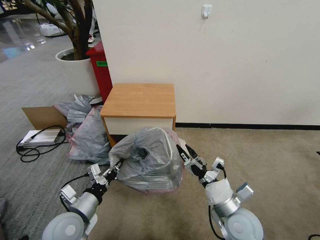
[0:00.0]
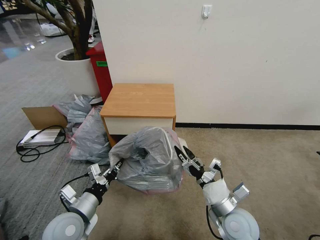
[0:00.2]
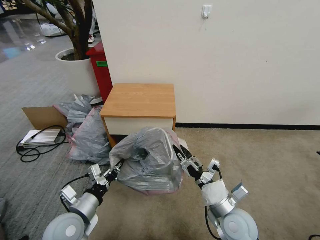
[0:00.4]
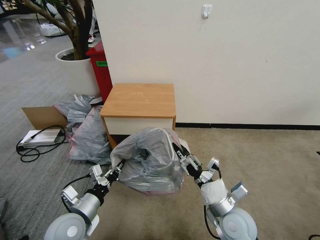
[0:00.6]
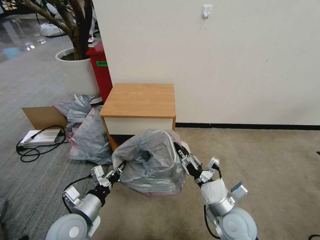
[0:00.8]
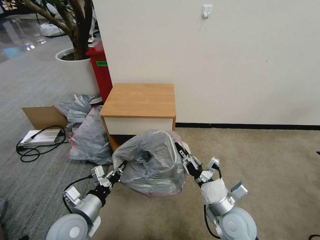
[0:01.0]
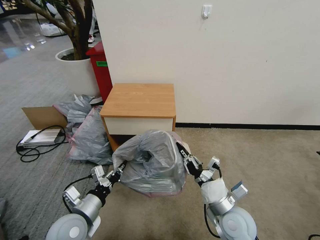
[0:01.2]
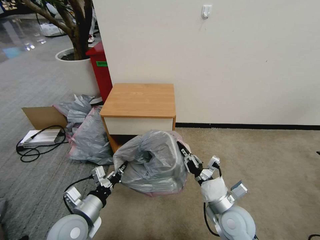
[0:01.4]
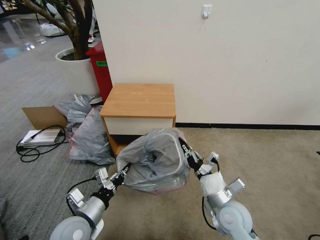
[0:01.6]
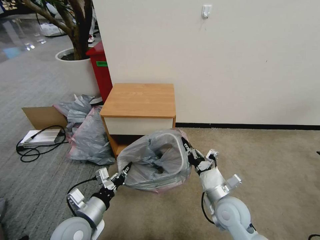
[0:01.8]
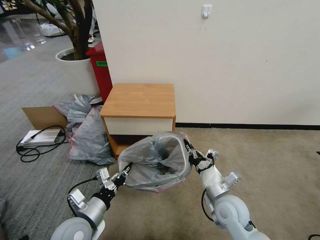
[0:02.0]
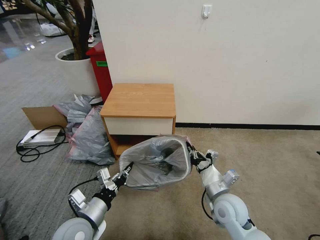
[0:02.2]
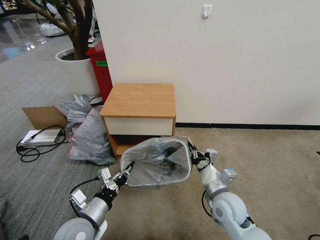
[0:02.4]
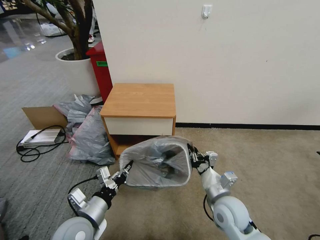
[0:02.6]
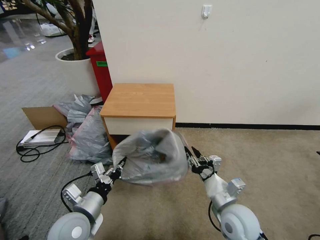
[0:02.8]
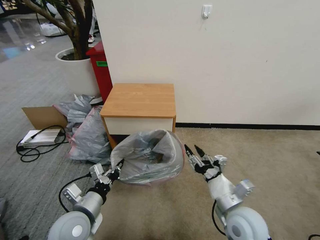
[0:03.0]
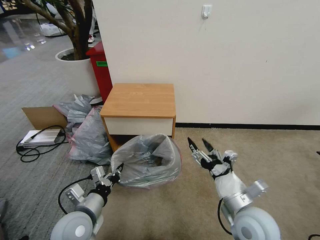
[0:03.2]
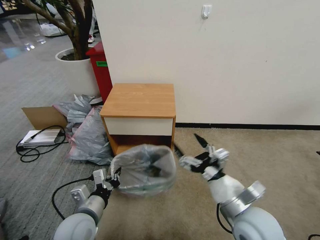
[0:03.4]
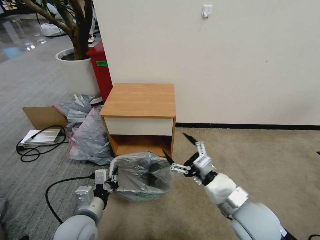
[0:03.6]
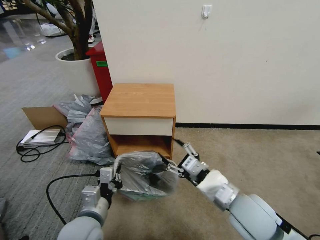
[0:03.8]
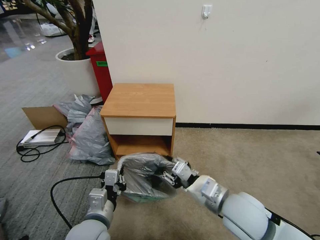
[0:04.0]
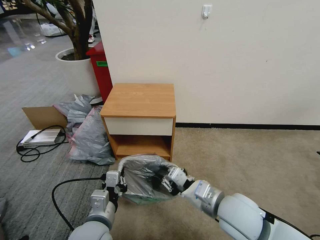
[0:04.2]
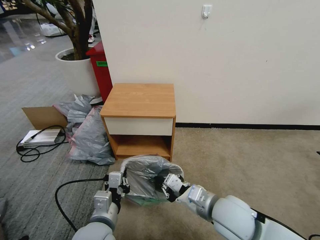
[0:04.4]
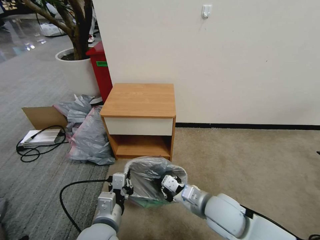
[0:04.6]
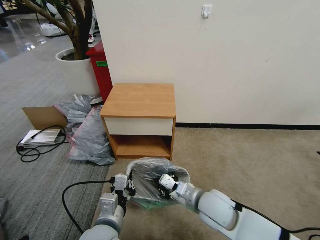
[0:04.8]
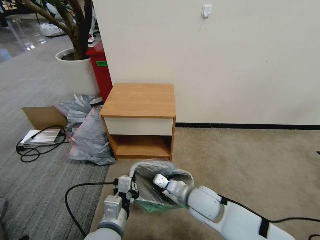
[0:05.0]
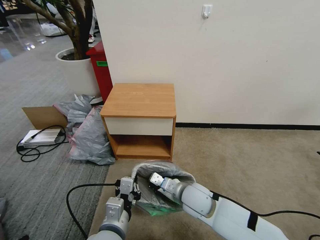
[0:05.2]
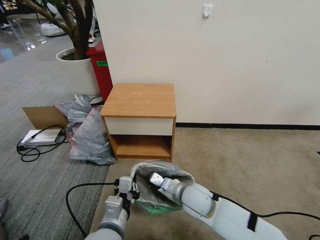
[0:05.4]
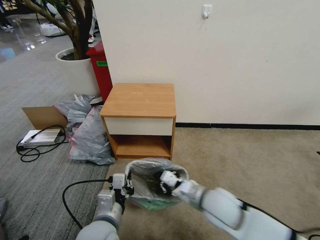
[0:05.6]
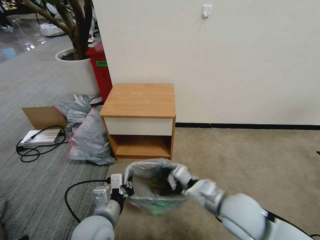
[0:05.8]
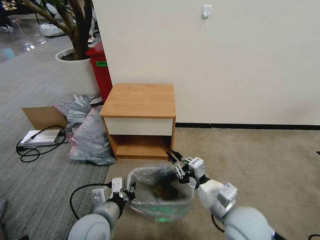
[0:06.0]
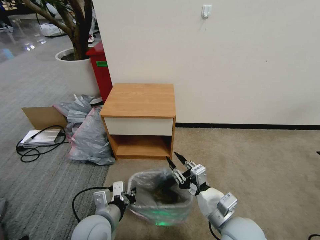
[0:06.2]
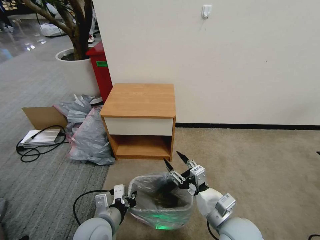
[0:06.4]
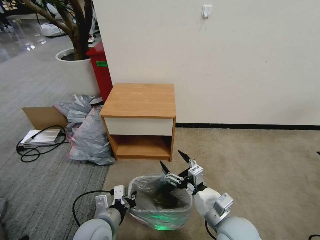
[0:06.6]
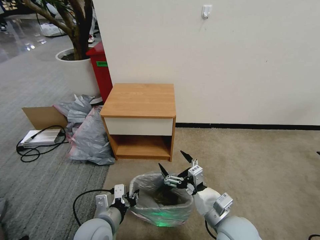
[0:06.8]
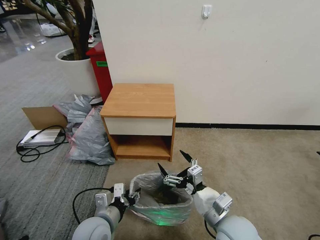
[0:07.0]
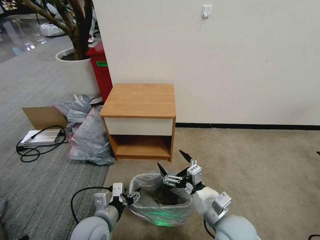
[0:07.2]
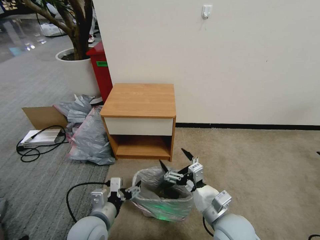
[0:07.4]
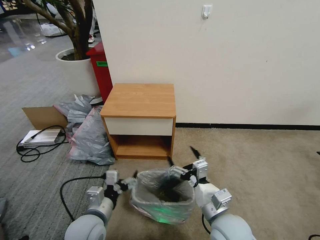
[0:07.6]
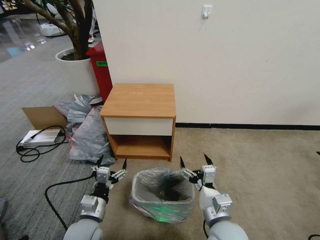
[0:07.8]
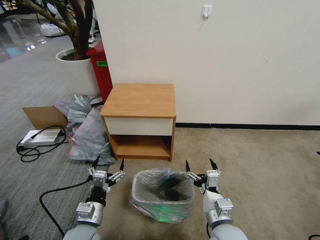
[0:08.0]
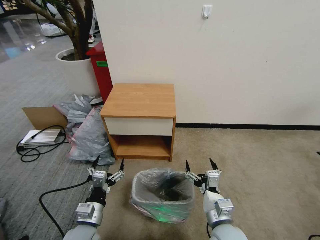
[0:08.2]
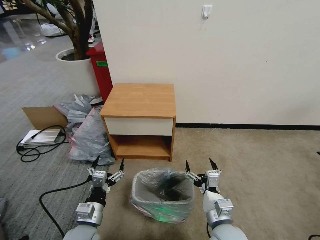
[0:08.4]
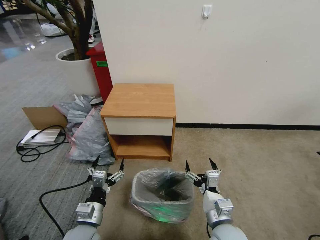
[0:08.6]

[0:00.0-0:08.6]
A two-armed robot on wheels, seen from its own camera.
Task of the whole recording: Pick up the garbage bag from the table and place it over the trash can.
0.0 to 1.4 s: The right gripper closes up.
1.4 to 2.8 s: The right gripper opens its fingers.
2.8 to 4.4 s: The right gripper heads upward, covering about 5 cm, and closes, while the left gripper goes approximately 5 cm to the right.
4.4 to 5.8 s: The right gripper moves about 10 cm downward and comes back.
5.8 to 7.2 s: The right gripper changes place by about 5 cm, and opens its fingers; the left gripper travels downward by some 5 cm, and opens its fingers.
7.2 to 8.6 s: The right gripper travels downward by about 5 cm. Meanwhile the left gripper moves about 5 cm.

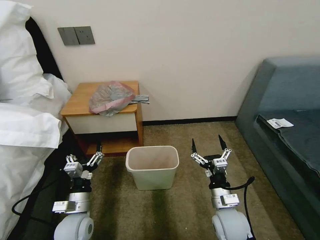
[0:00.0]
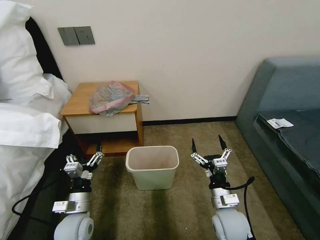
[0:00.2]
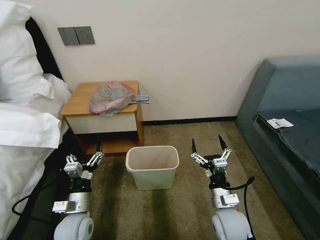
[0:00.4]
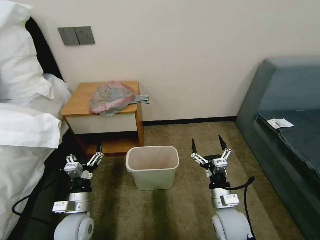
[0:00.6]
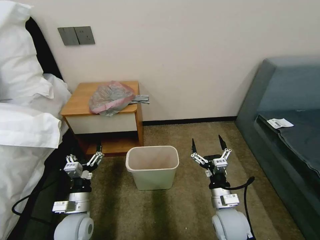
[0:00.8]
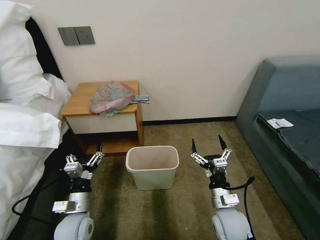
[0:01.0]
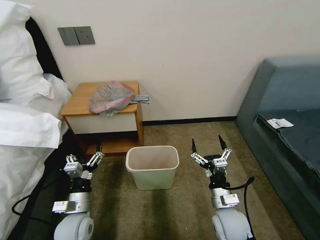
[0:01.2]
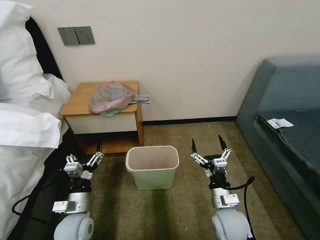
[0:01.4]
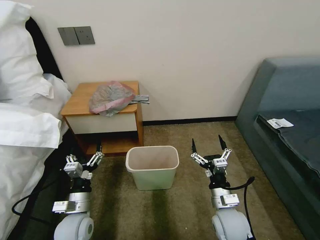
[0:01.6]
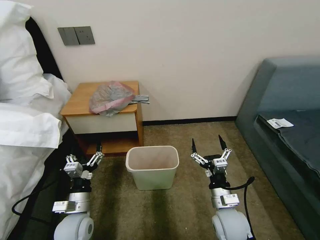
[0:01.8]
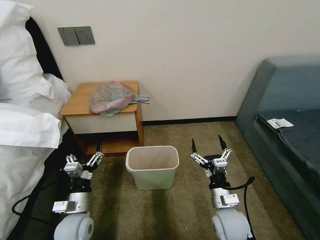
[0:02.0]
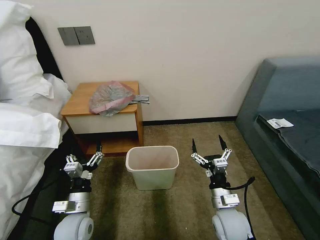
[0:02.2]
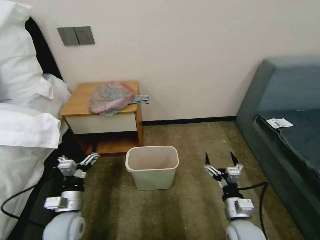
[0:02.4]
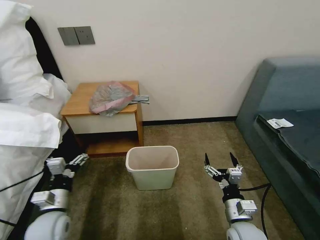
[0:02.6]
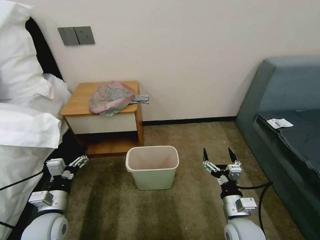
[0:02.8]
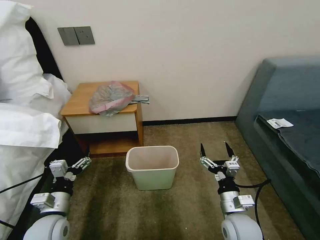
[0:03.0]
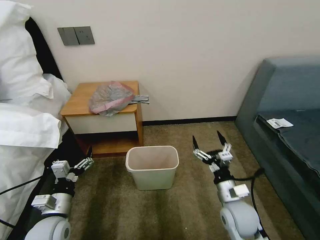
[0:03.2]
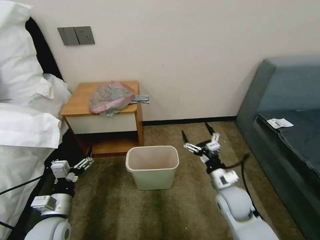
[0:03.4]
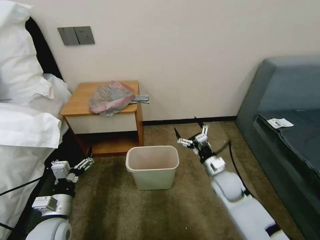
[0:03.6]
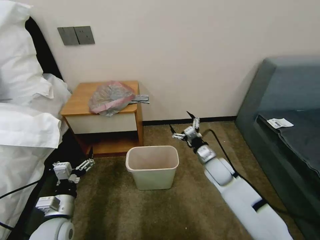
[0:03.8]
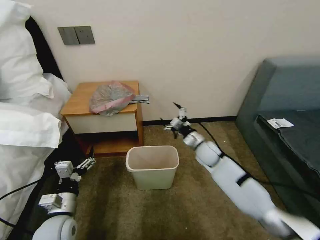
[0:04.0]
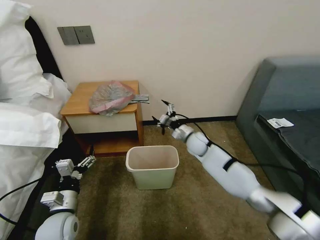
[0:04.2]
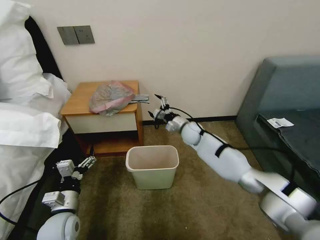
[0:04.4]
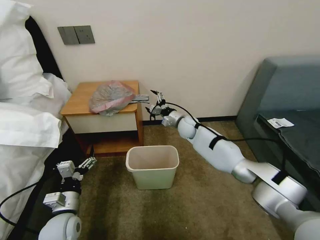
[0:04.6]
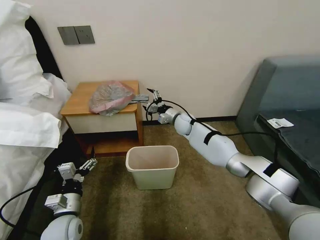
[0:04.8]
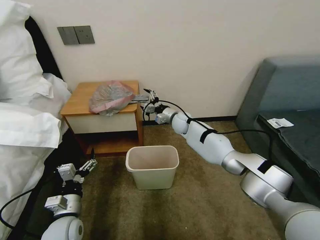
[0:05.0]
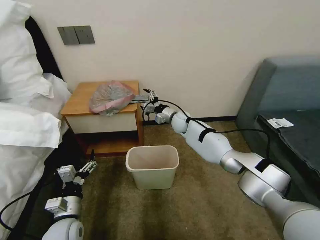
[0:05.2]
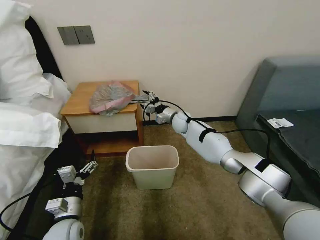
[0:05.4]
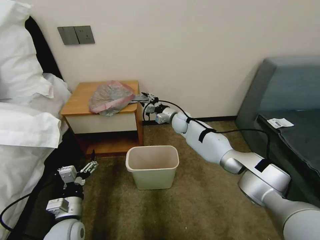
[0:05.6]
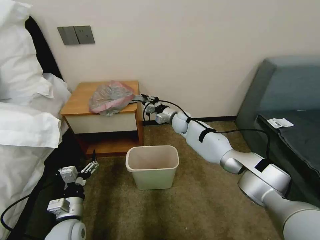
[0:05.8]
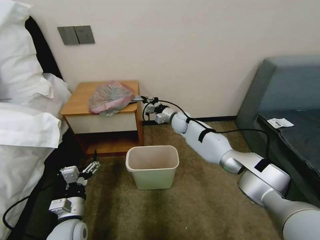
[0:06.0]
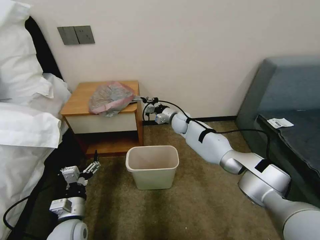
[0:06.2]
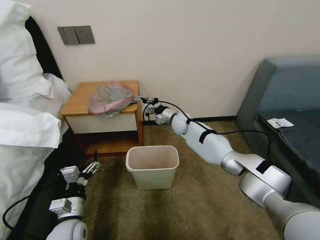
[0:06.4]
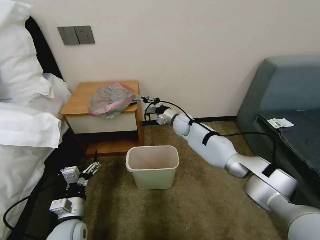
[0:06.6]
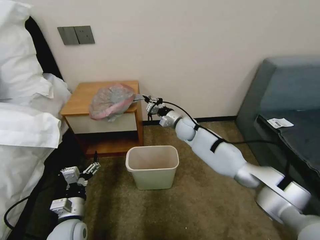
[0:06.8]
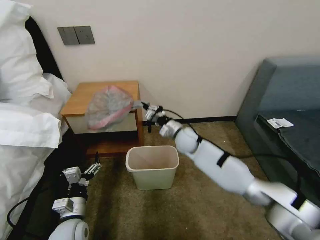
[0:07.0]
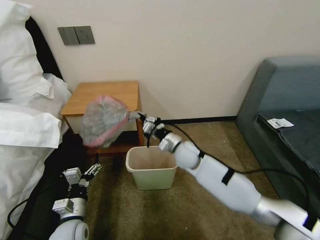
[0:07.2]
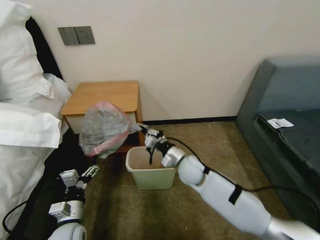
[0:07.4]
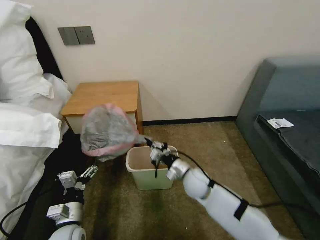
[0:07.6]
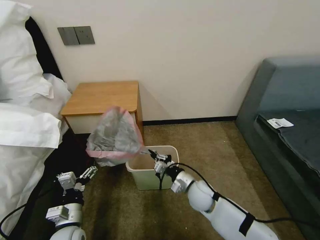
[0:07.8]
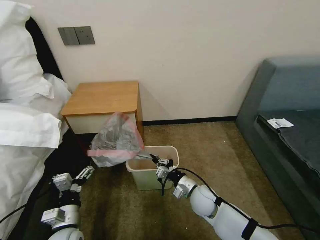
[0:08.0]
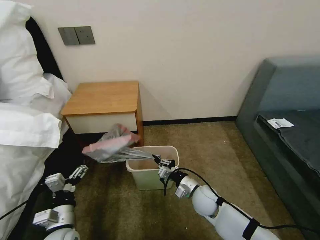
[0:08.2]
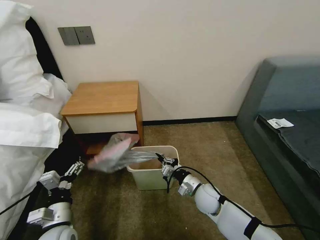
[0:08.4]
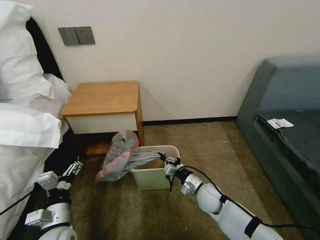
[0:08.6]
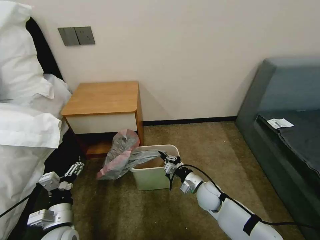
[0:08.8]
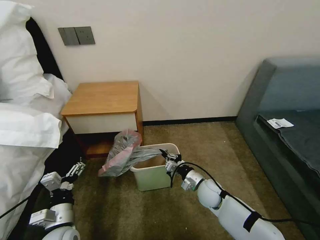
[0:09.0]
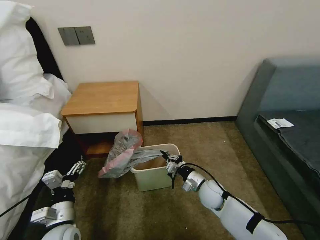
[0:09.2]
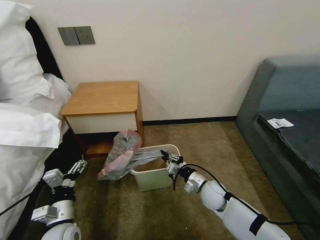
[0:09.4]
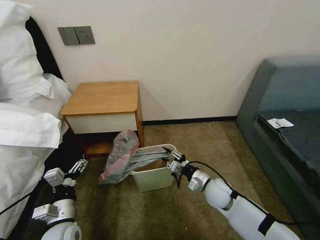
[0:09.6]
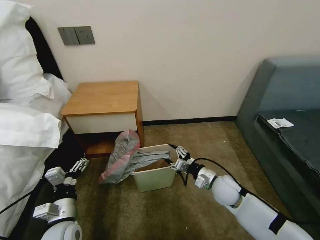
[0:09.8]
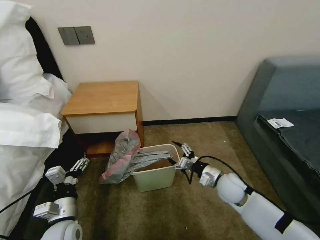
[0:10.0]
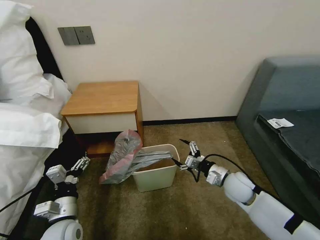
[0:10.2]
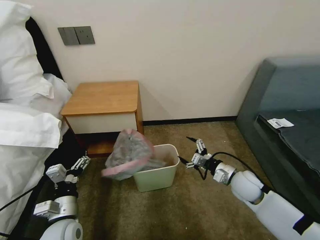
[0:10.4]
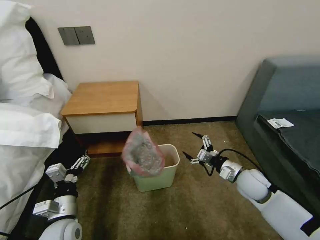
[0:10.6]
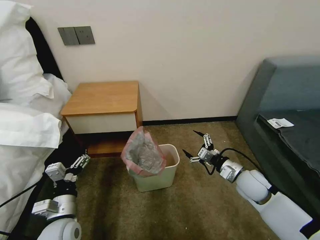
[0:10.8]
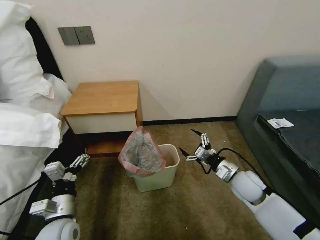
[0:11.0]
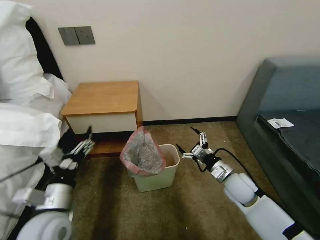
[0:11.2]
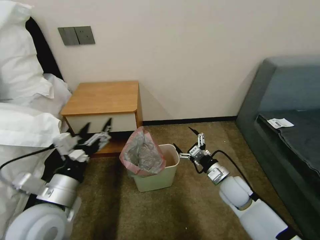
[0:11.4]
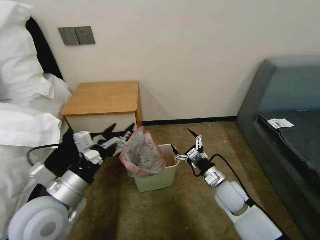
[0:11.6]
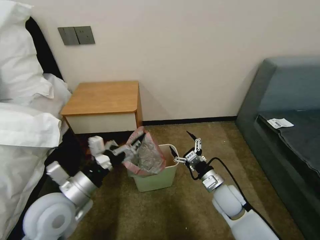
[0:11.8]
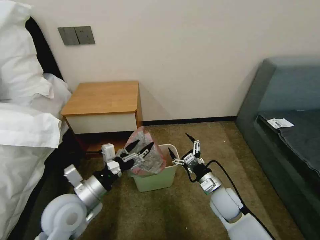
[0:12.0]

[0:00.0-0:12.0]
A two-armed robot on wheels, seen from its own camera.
Task of the whole recording: Pick up the garbage bag from the table and place it over the trash can.
1.6 to 3.0 s: The left gripper travels to the left by roughly 5 cm.
3.0 to 4.4 s: The right gripper is displaced forward by some 35 cm.
4.4 to 6.0 s: The right gripper changes place by roughly 5 cm, and closes its fingers.
6.0 to 7.6 s: The right gripper travels backward by approximately 25 cm.
7.6 to 9.0 s: The right gripper shifts approximately 10 cm to the right and downward.
9.0 to 10.4 s: The right gripper travels to the right and upward by about 15 cm, and opens its fingers.
10.4 to 12.0 s: The left gripper is displaced upward by some 10 cm. Meanwhile the right gripper shifts approximately 10 cm to the left.

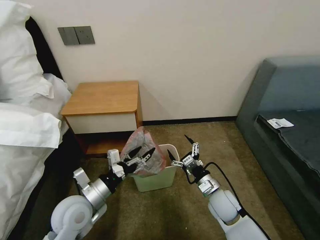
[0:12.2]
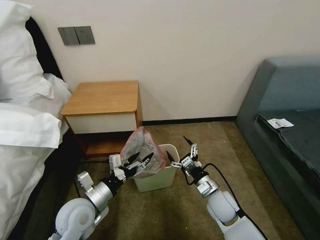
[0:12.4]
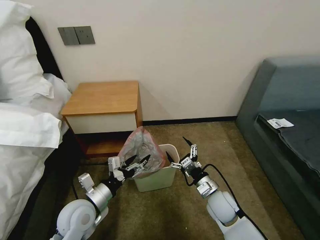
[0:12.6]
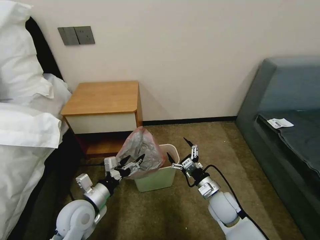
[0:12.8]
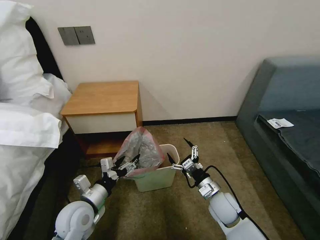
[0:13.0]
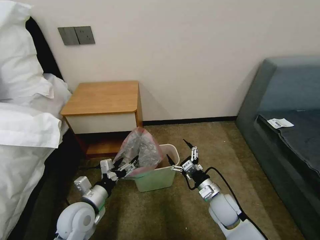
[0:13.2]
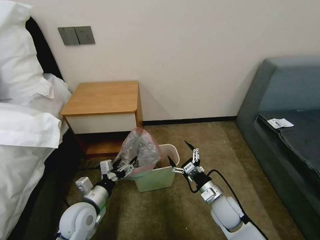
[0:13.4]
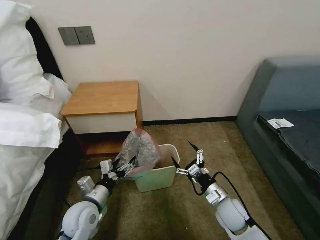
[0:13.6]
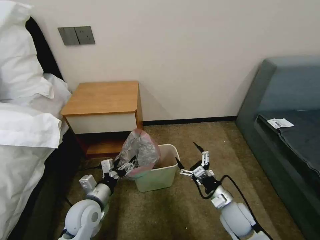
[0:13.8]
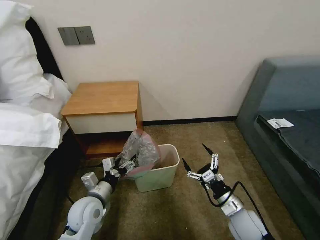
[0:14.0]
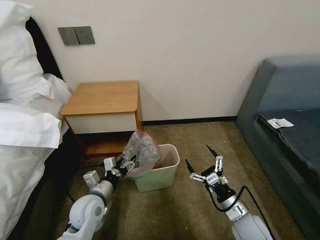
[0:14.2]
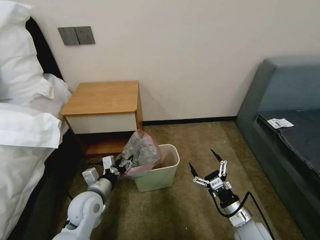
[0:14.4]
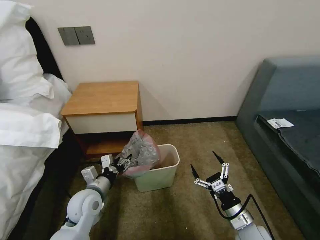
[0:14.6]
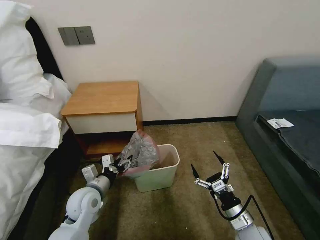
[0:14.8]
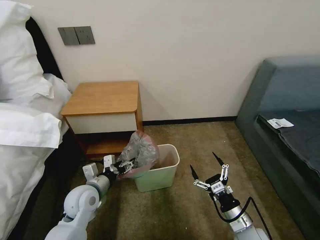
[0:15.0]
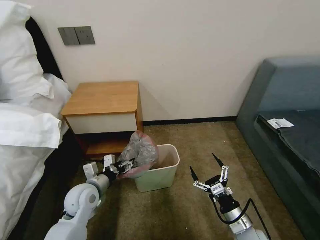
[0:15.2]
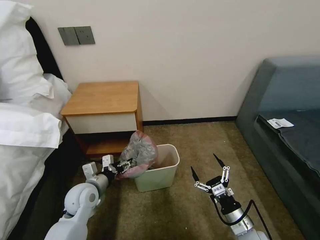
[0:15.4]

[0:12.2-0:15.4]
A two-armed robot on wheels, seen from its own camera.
Task of the whole recording: Pick up the garbage bag from the table and place it over the trash can.
12.2 to 13.8 s: The right gripper ends up approximately 5 cm from where it was. The left gripper shifts approximately 5 cm downward.
13.8 to 15.4 s: The right gripper moves backward, approximately 5 cm. The left gripper moves some 5 cm.
